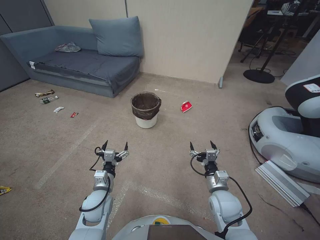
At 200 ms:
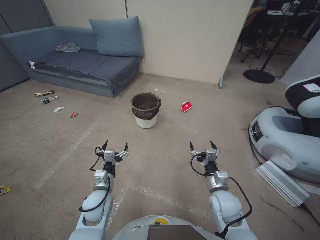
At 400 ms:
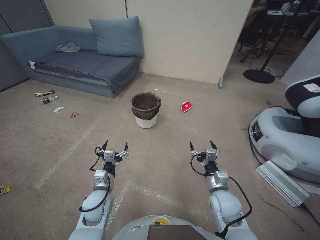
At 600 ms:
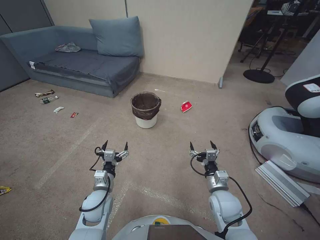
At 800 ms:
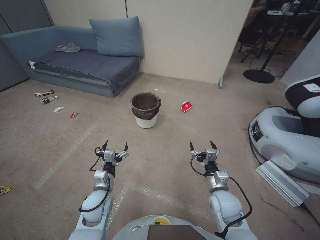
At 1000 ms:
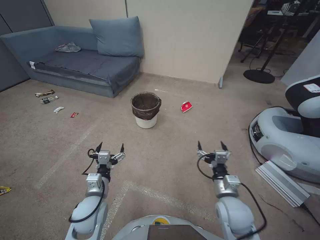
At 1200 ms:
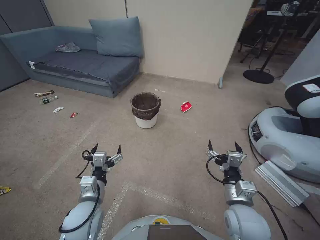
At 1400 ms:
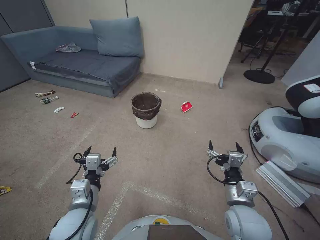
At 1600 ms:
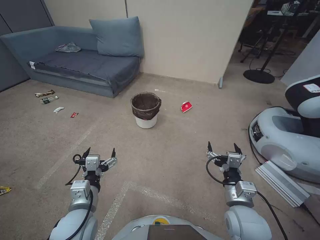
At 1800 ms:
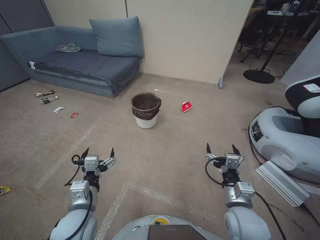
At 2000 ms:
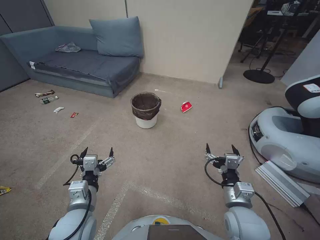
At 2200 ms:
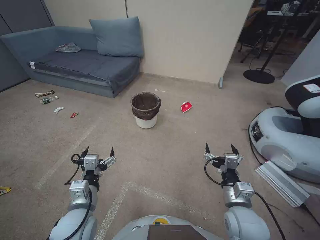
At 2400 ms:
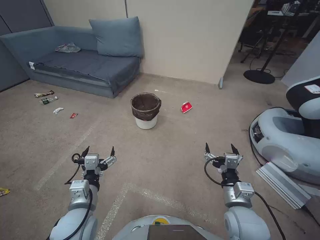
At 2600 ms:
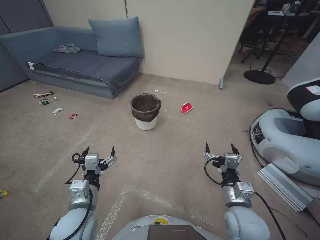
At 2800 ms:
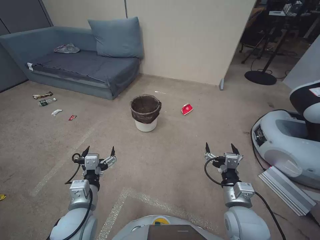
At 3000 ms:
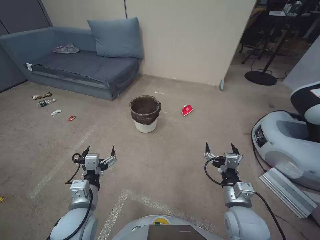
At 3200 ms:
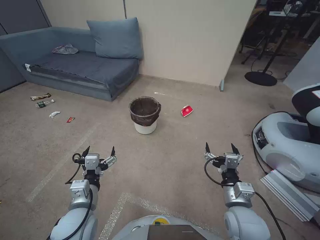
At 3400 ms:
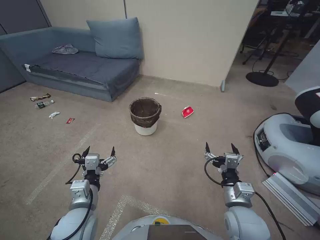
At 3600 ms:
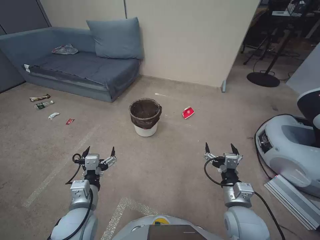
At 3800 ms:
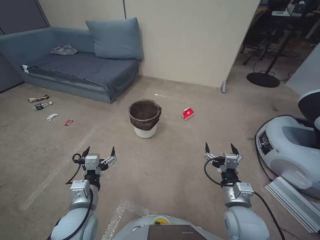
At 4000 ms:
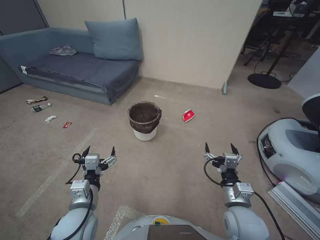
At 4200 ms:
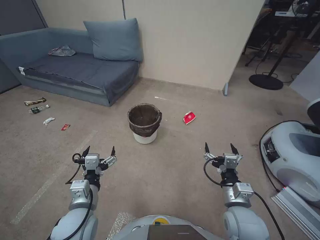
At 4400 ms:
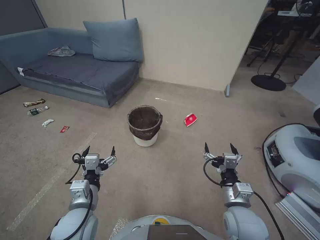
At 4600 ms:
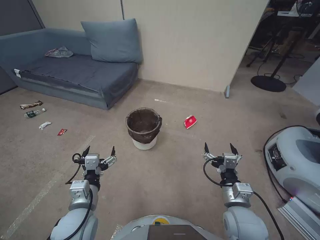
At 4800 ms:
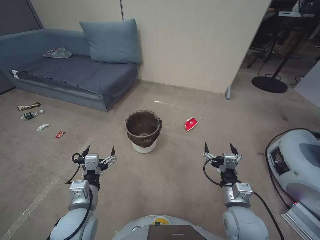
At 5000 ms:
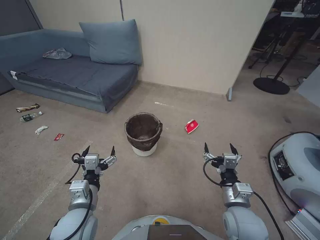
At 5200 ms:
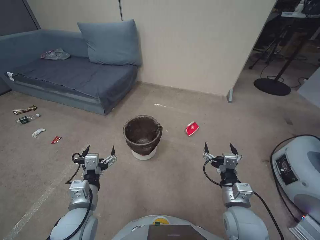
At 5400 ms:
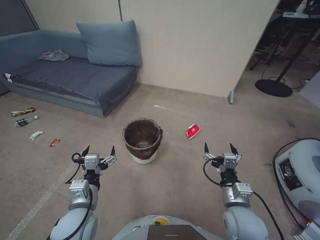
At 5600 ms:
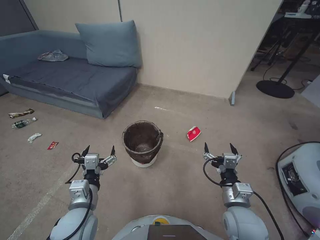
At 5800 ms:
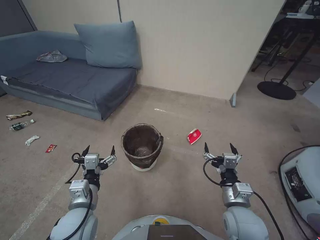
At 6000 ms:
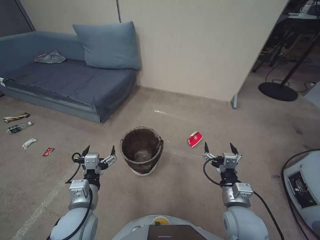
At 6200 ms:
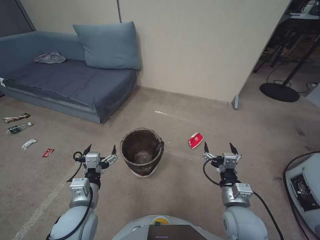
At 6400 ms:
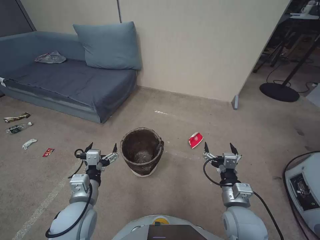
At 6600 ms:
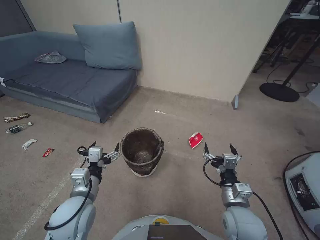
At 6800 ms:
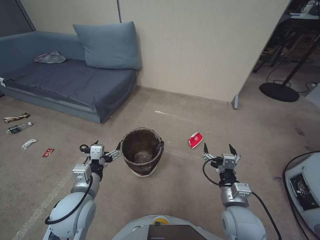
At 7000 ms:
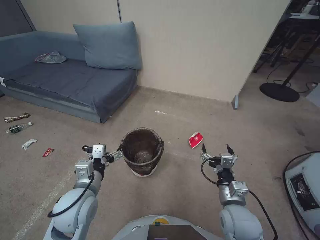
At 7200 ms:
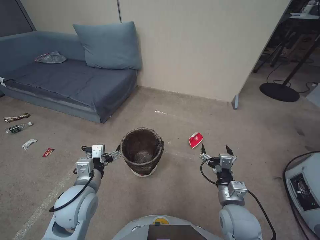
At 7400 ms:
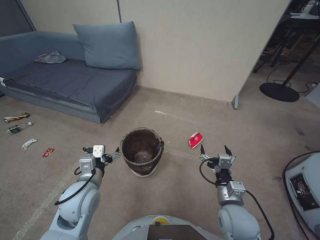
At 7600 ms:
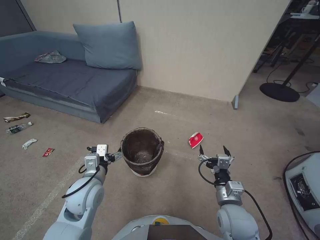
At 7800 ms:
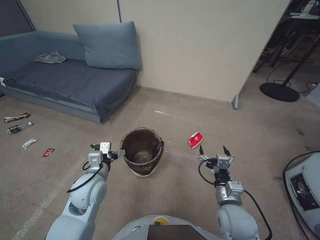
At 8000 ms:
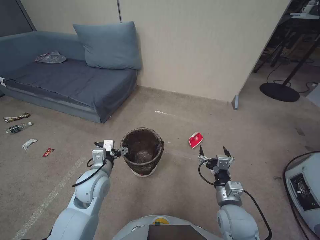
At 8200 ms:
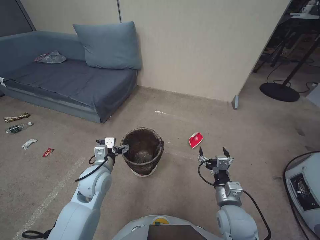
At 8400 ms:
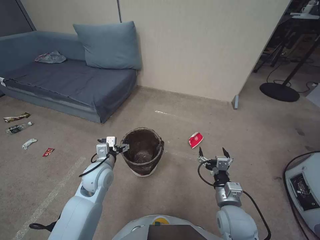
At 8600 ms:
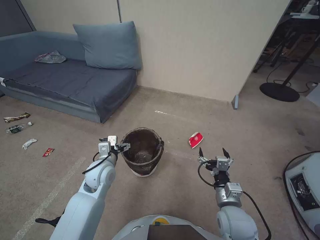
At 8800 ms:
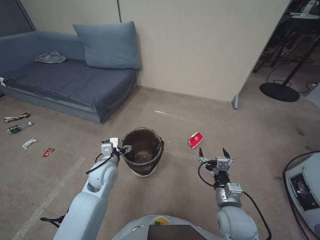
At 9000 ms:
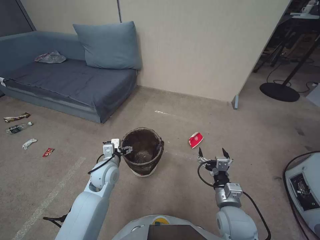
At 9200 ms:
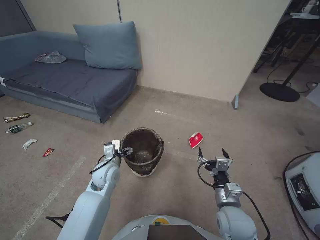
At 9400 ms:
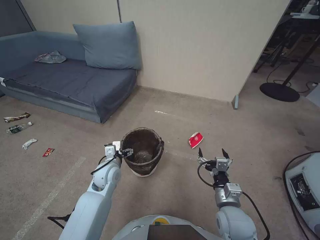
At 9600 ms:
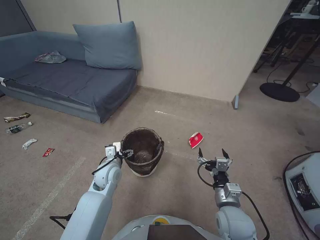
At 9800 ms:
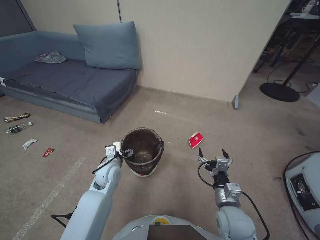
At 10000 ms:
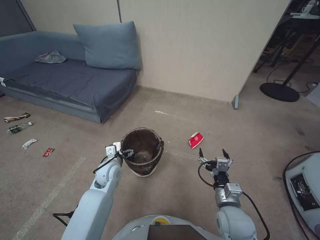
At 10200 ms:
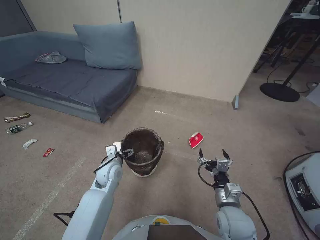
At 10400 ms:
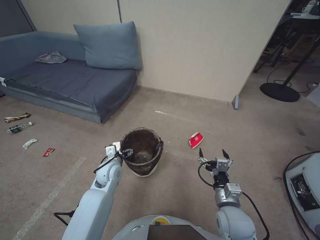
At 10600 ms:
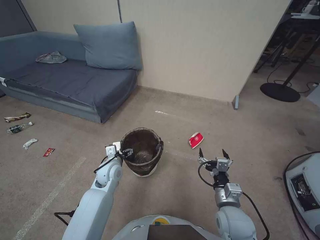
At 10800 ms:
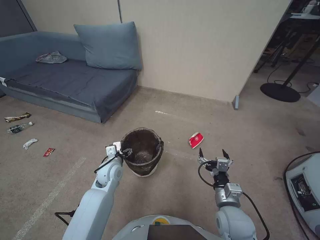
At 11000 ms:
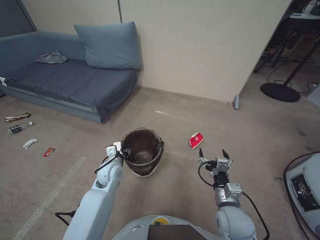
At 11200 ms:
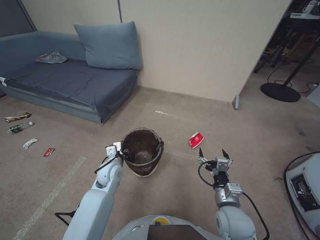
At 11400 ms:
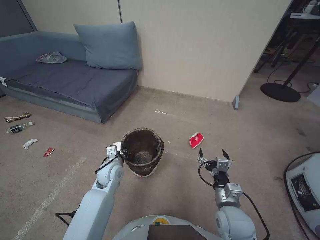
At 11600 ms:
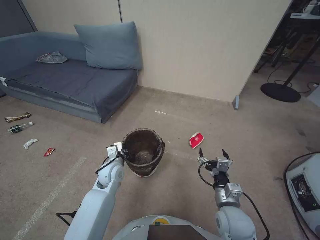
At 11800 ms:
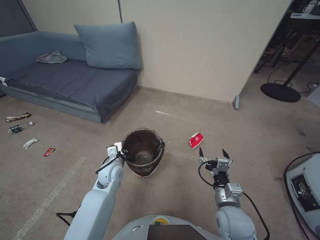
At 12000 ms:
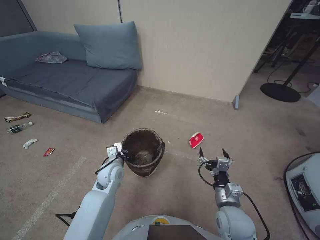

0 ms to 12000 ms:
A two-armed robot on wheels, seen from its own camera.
Task of the whole recording: Pick up the trash bin, then pick up the garbage from the floor and place it into the trash bin.
1600 ms to 4400 ms: The two grippers keep their place.
6000 ms to 7600 ms: The left gripper travels forward by some 5 cm.
7600 ms to 9000 ms: The left gripper moves forward and downward, approximately 10 cm.
9000 ms to 10400 ms: The grippers stay close to where they were, moving slightly.
10400 ms to 12000 ms: The left gripper closes.

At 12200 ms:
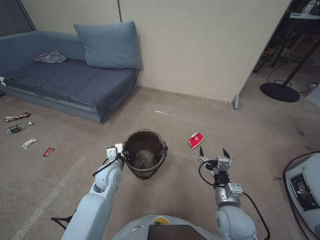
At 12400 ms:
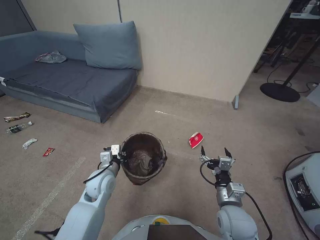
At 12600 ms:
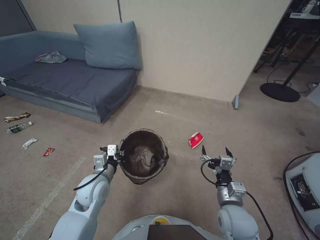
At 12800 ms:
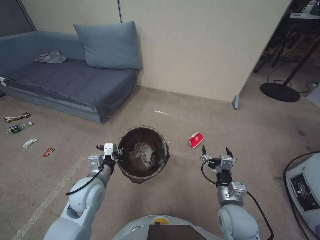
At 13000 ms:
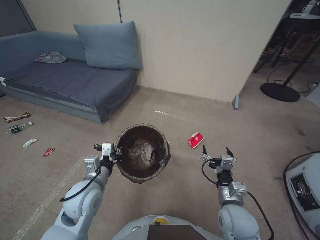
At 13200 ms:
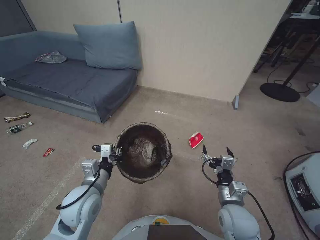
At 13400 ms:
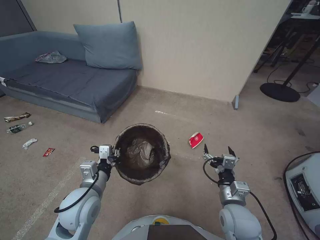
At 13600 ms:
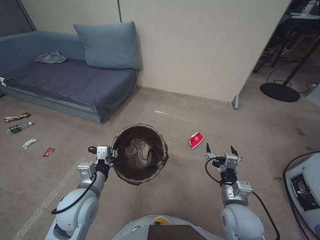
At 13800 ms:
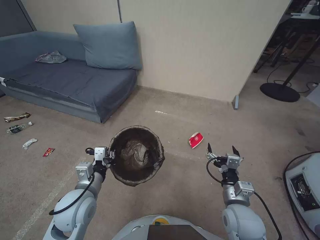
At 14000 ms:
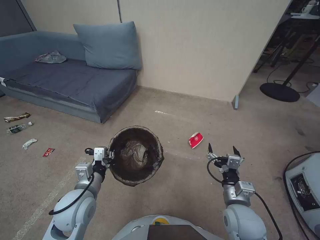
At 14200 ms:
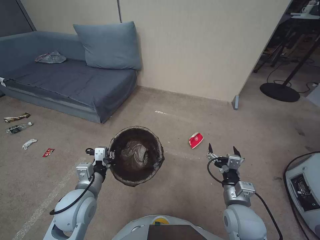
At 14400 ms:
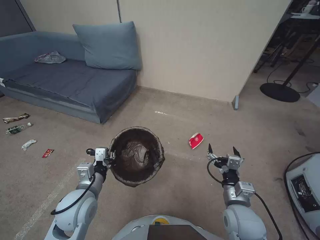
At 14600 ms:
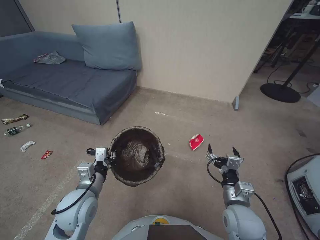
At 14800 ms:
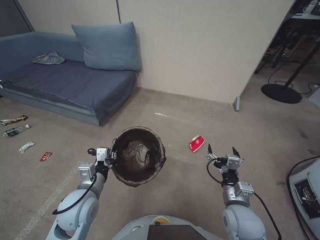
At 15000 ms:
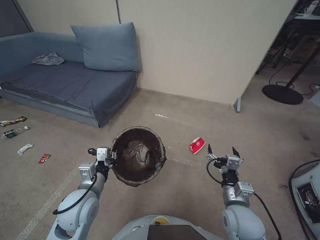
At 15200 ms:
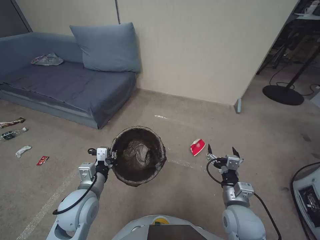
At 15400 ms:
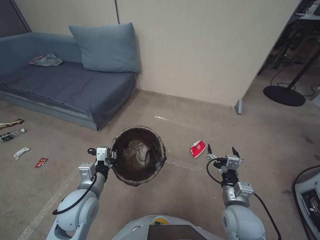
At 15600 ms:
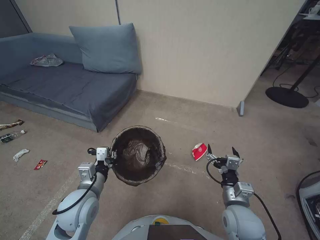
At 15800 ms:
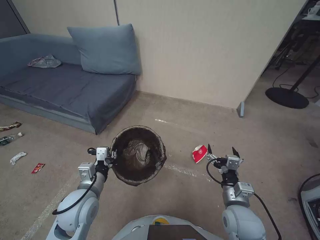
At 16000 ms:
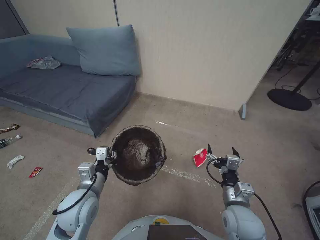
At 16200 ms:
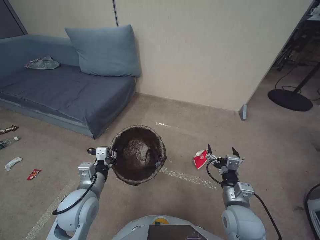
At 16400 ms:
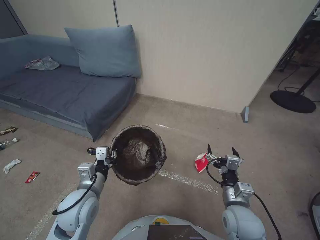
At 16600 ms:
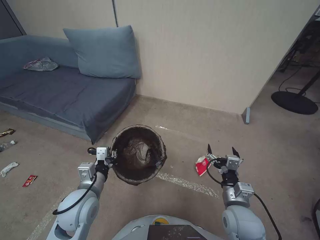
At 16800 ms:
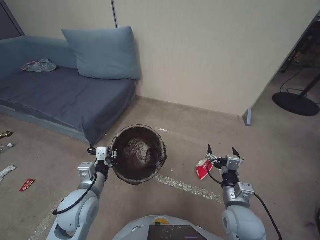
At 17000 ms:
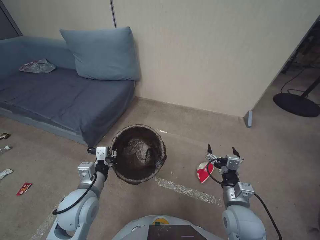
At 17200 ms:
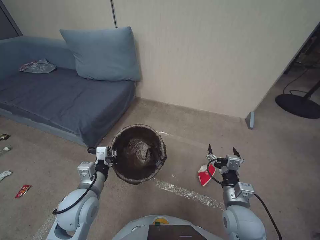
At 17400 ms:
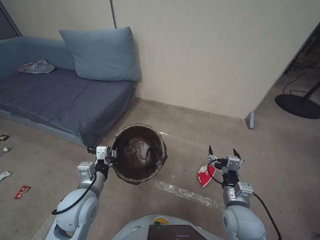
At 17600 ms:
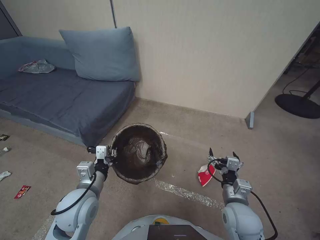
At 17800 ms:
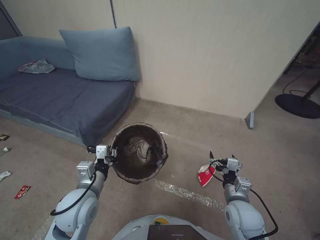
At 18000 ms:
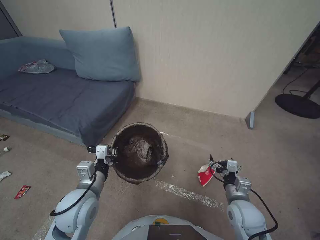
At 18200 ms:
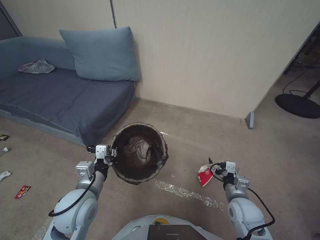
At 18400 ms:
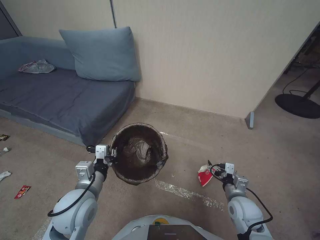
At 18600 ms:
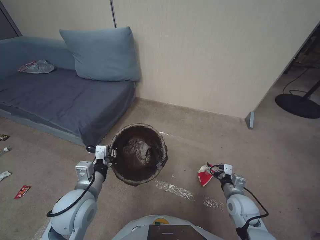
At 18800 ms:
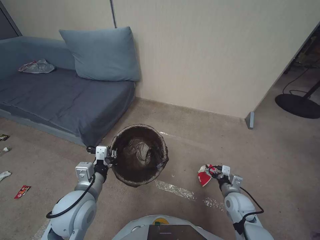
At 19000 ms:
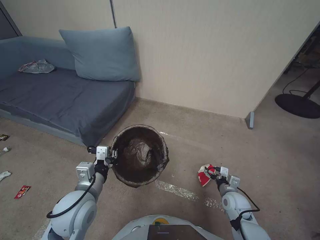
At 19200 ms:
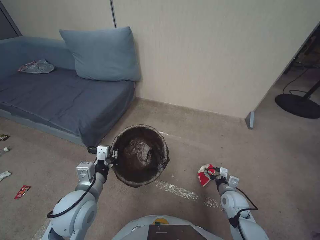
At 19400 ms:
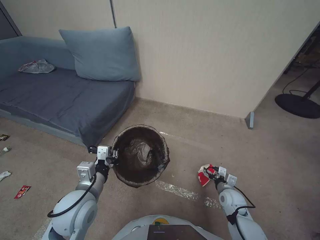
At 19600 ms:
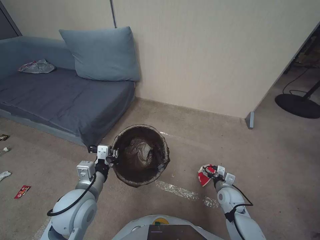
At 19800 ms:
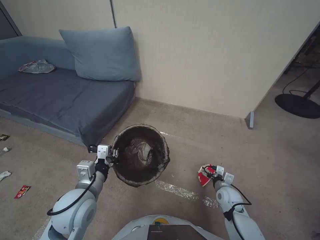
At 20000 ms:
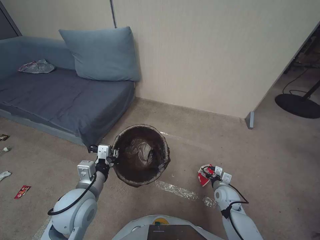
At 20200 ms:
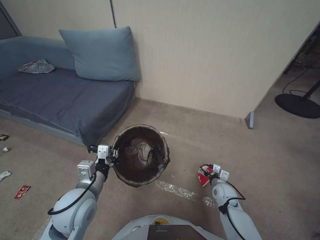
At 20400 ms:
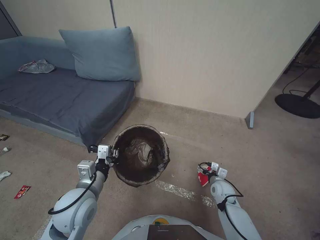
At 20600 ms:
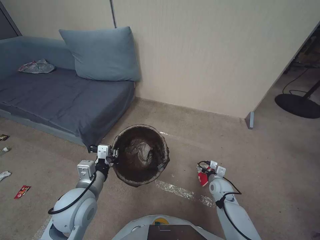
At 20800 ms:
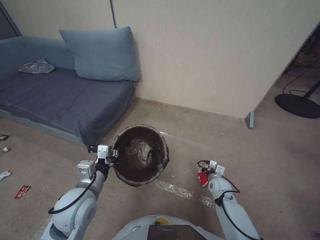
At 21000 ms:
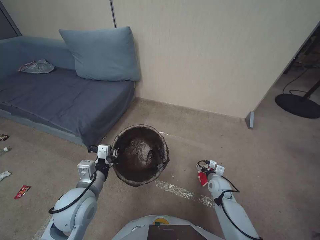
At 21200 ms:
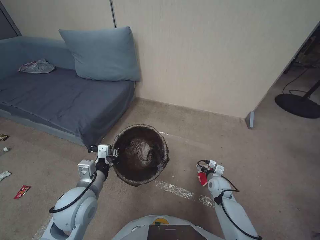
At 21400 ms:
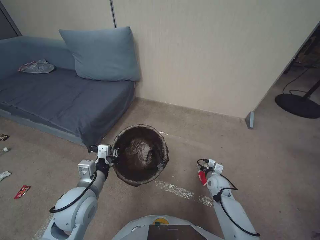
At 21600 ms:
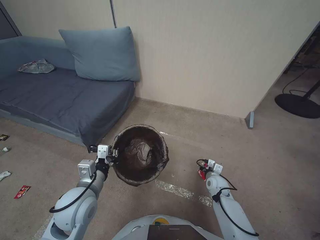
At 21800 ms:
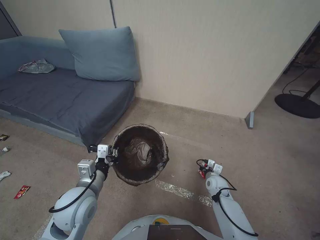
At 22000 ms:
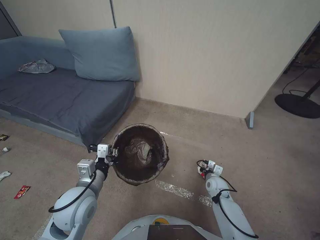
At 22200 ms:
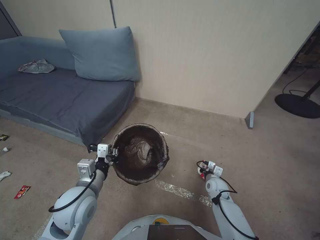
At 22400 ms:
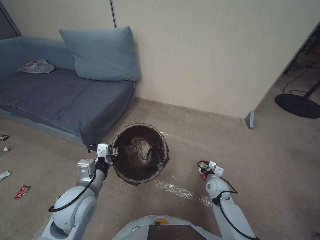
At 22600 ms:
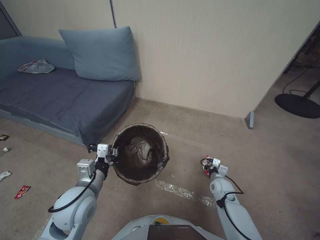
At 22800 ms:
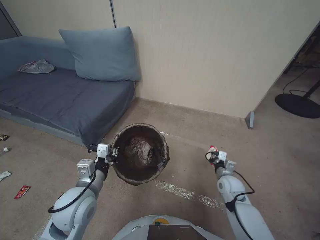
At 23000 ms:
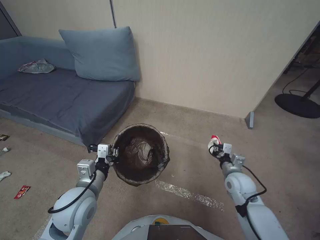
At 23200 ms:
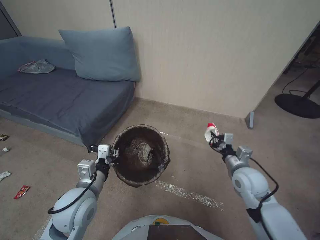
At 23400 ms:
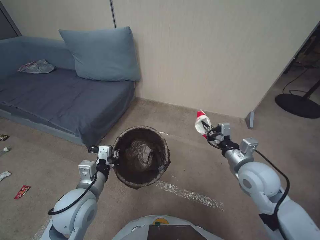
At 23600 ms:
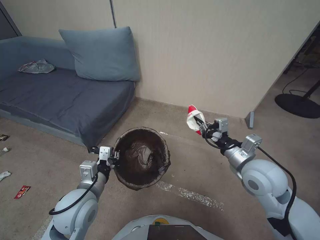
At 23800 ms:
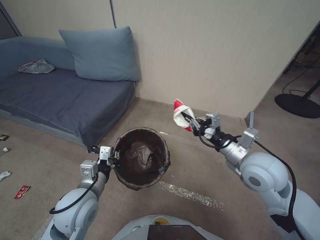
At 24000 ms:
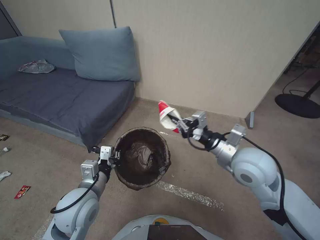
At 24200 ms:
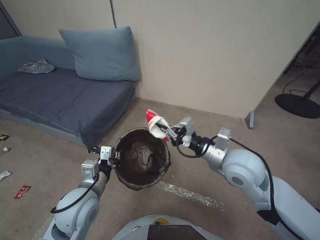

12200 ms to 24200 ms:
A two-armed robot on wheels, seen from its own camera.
Task of the whole recording: Pick up the trash bin, then pick up the garbage from the floor and place it into the trash bin.
12200 ms to 13800 ms: The left gripper moves backward and upward, approximately 15 cm.
13800 ms to 16600 ms: The two grippers keep their place.
16600 ms to 18200 ms: The right gripper moves to the right and downward, some 5 cm.
18200 ms to 19800 ms: The right gripper travels downward and forward by about 10 cm.
19800 ms to 21200 ms: The right gripper travels forward by approximately 5 cm.
21200 ms to 22600 ms: The right gripper closes.
22600 ms to 24200 ms: The right gripper is displaced upward by roughly 35 cm.
